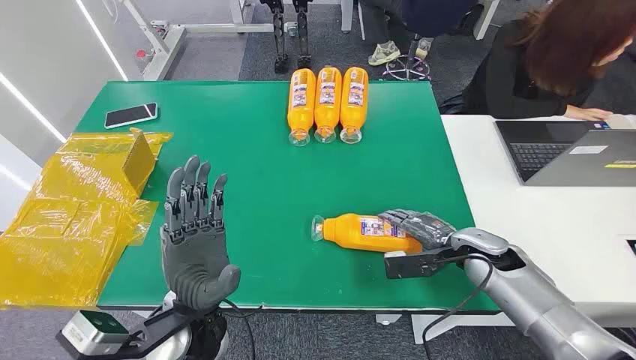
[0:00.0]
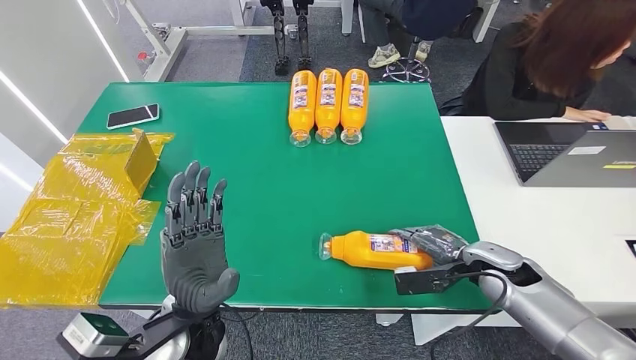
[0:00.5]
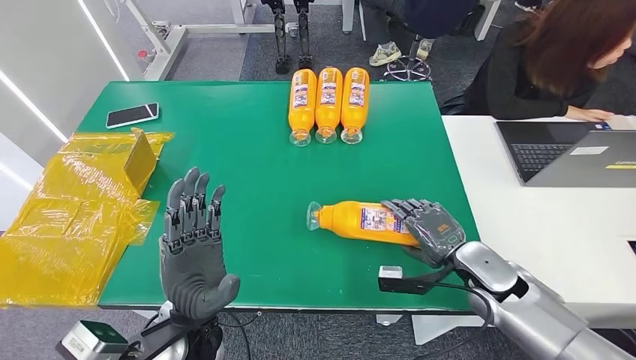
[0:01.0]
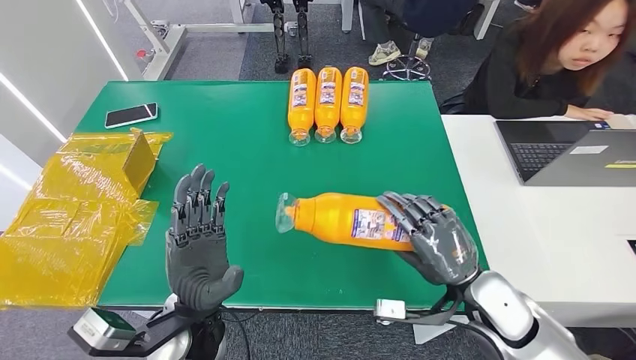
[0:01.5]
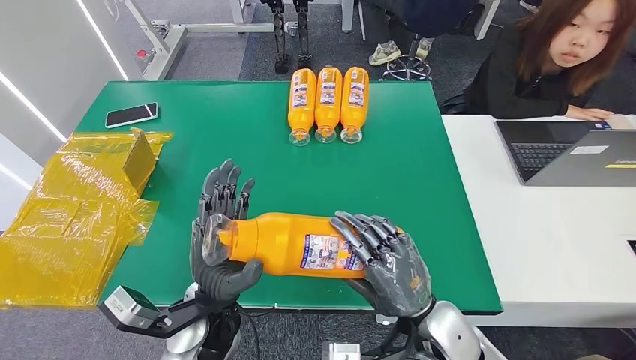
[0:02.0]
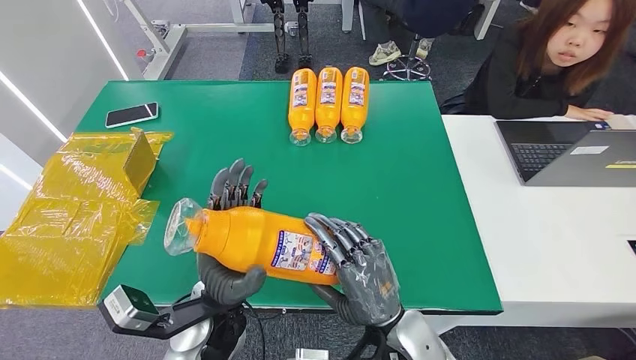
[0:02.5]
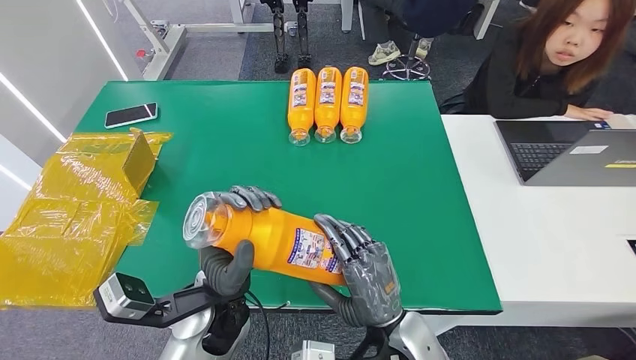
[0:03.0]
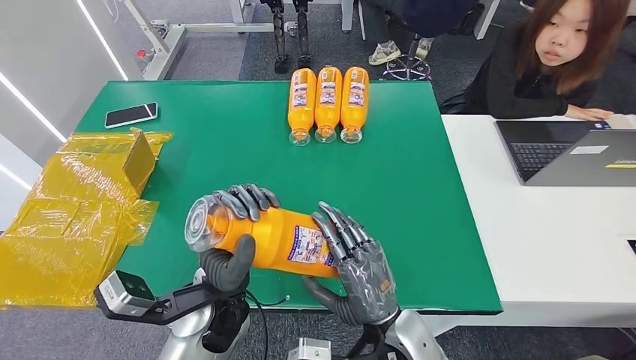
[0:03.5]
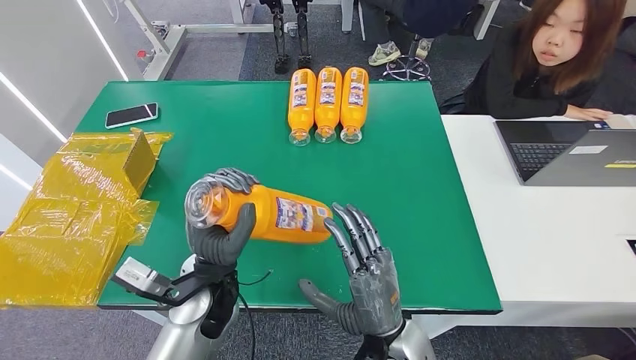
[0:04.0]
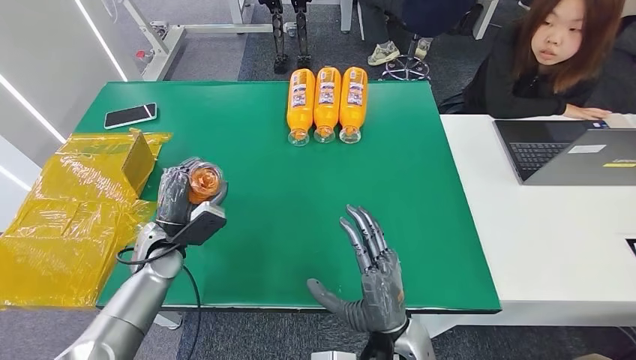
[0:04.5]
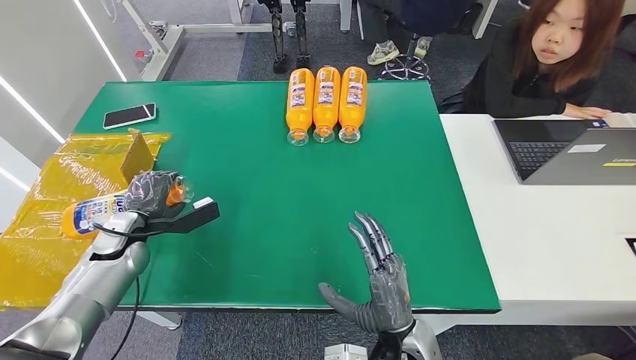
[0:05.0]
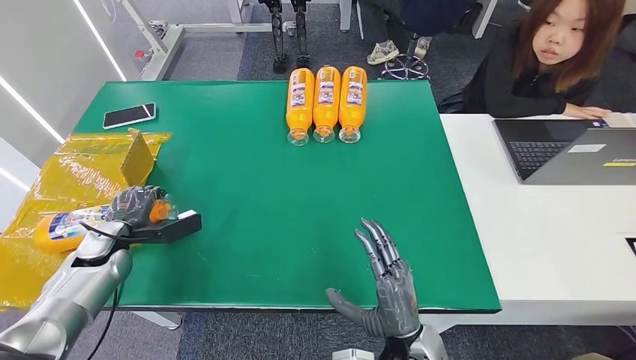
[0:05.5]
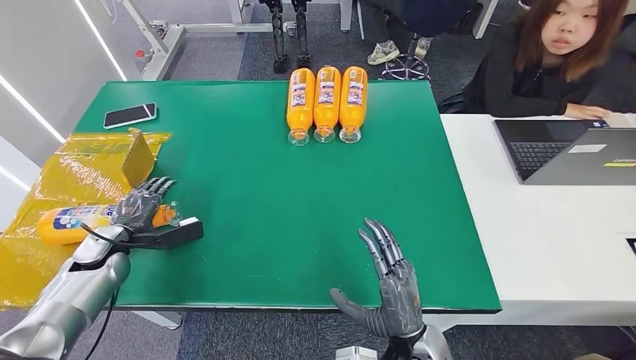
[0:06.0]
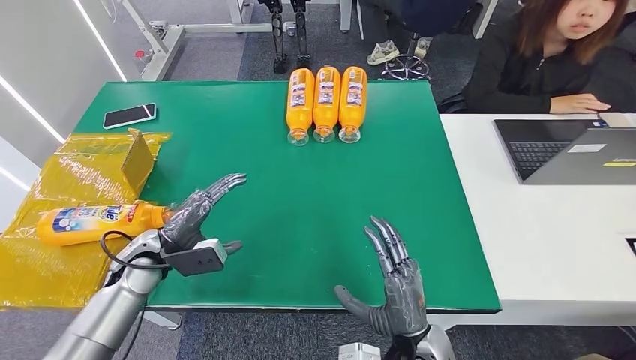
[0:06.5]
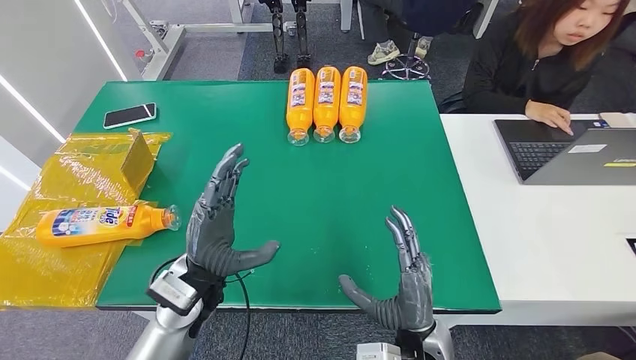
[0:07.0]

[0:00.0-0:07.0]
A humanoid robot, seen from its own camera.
Step, 0:00.0 to 0:01.5: Pick up the bottle from the table.
Step, 0:02.0 to 0:07.0: Turn the bottle to the front side.
0:02.0 to 0:03.5: The right hand moves to the left, some 5 cm.
0:05.0 to 0:07.0: The left hand heads to the right, covering about 20 cm.
